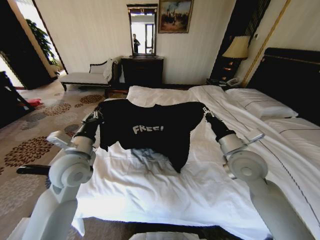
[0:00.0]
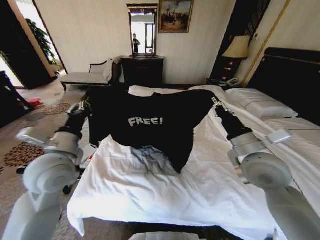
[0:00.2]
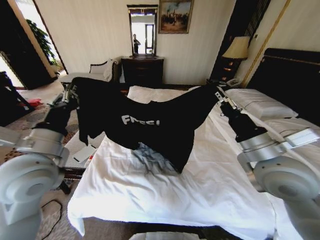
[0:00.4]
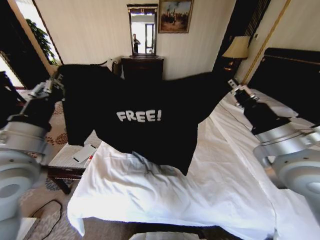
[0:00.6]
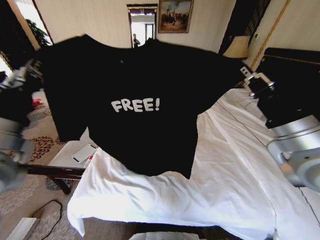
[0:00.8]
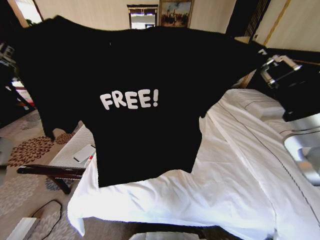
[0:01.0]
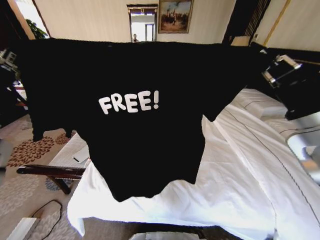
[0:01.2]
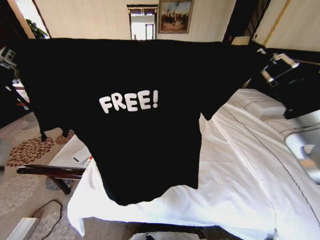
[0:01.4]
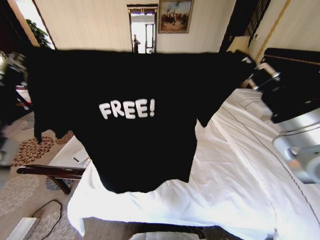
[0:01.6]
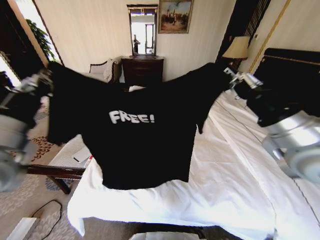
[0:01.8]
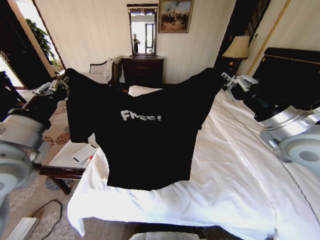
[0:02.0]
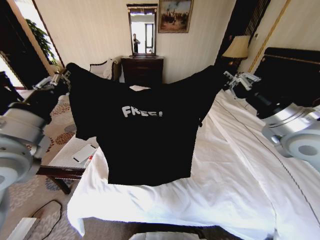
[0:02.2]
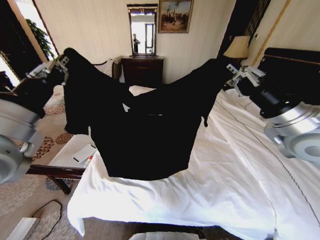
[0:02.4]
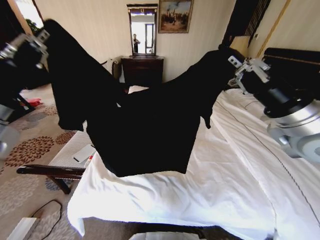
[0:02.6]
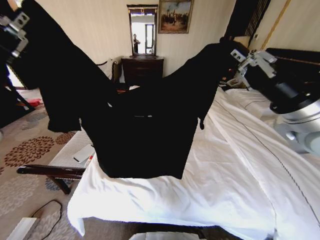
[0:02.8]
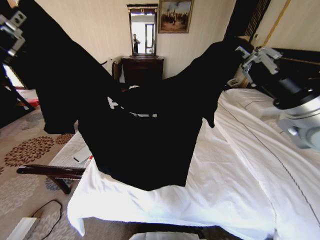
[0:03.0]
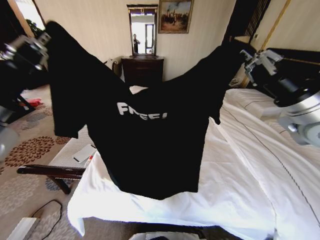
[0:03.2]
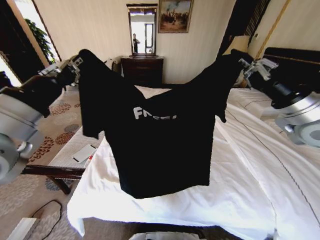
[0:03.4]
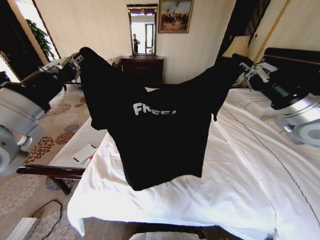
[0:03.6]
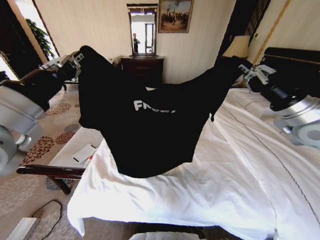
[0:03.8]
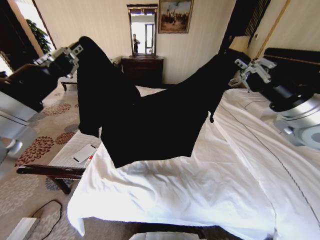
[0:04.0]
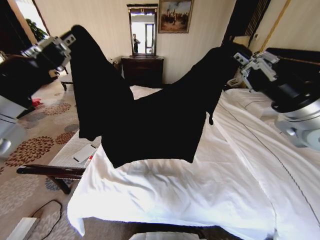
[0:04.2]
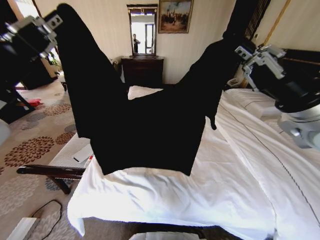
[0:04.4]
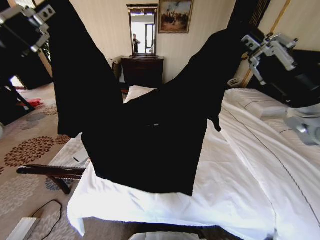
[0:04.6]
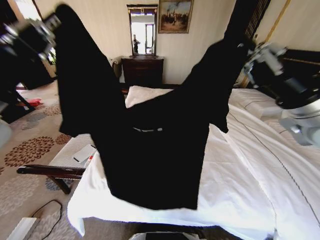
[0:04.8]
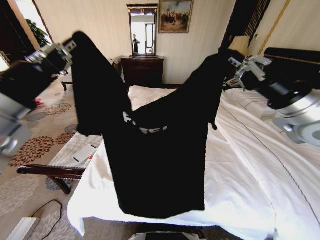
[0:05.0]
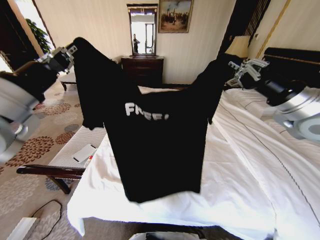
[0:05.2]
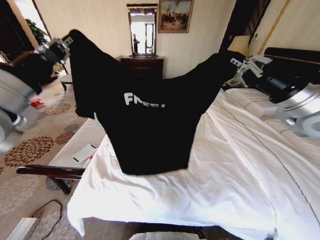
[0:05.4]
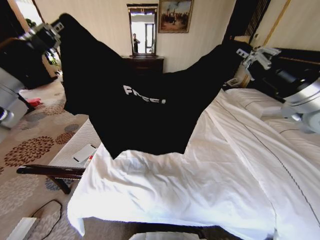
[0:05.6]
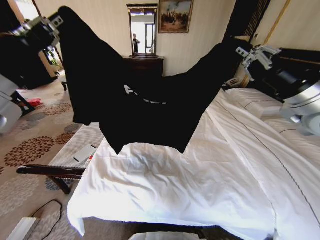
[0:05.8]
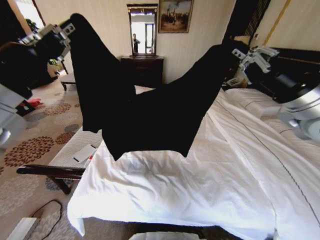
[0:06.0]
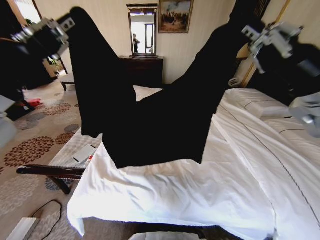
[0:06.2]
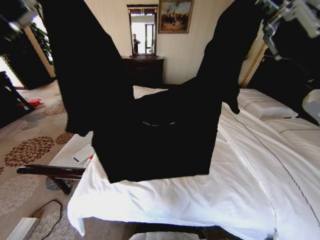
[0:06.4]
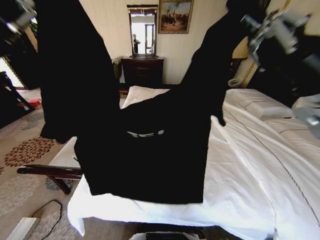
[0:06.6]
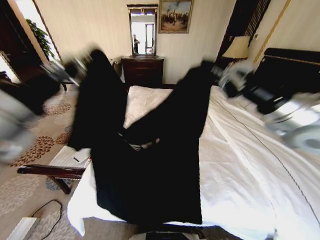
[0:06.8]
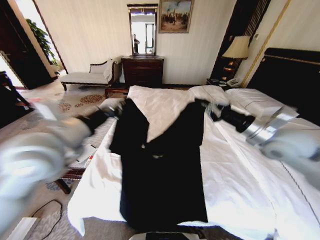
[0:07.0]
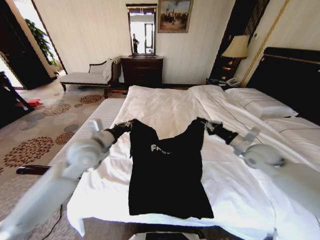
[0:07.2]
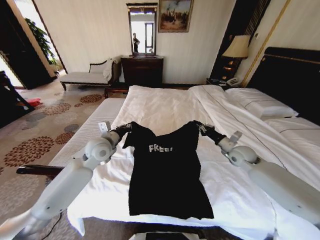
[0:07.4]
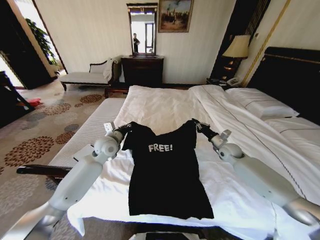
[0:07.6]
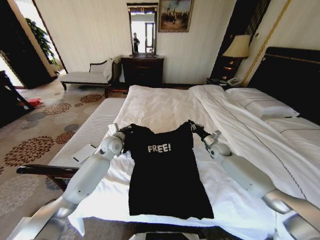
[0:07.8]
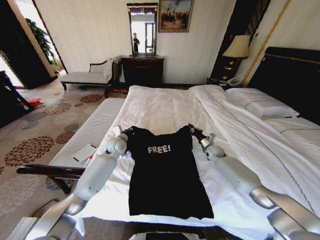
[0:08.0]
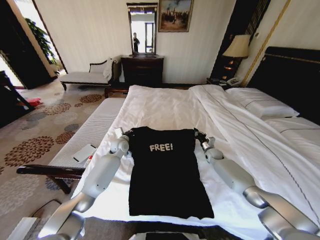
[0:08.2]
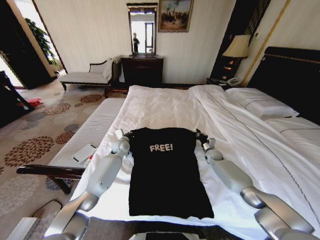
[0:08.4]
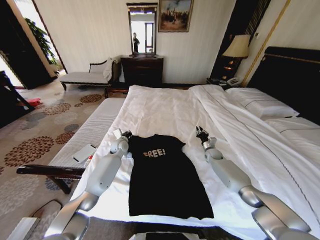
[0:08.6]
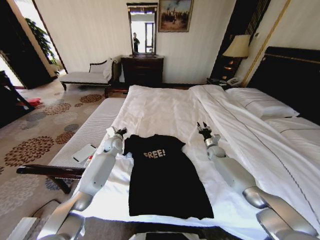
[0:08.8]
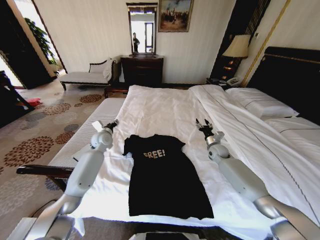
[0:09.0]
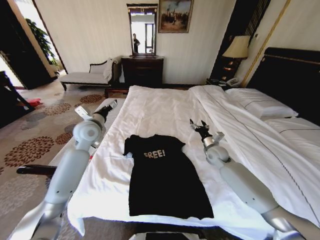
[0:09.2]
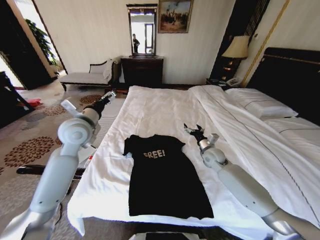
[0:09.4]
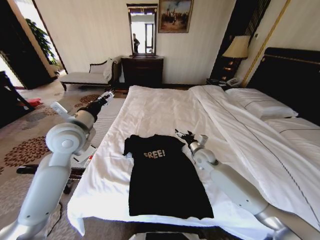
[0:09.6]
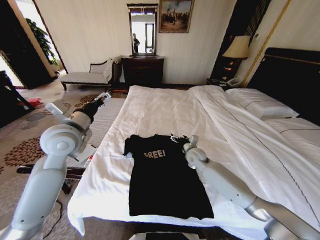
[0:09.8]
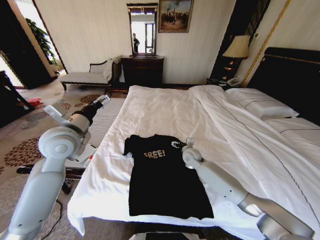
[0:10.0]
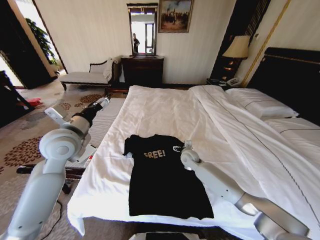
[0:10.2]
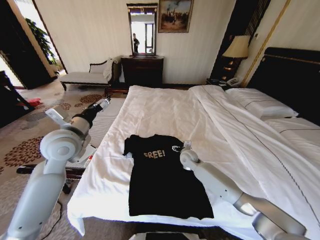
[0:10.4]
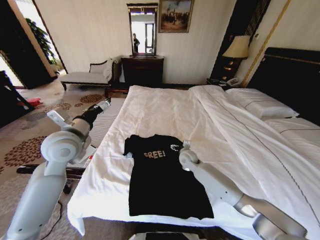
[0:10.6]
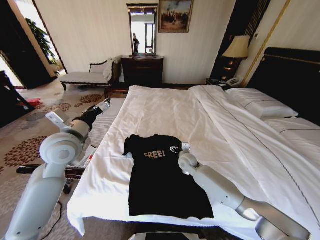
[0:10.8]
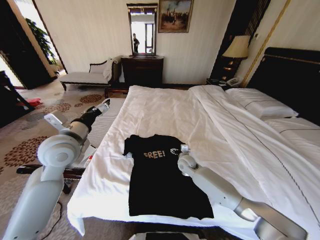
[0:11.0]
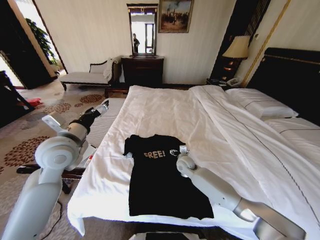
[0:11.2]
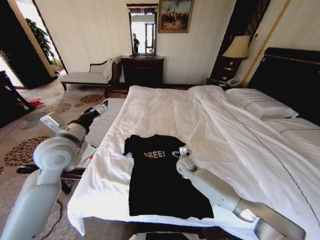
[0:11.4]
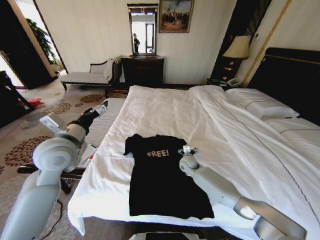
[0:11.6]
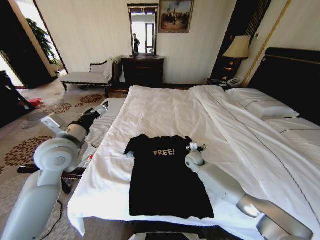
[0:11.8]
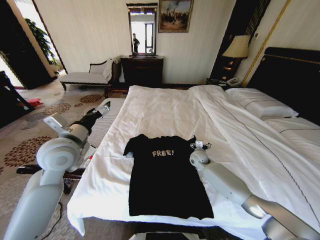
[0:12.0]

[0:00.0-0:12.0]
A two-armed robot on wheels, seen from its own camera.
Task of the whole recording: Fold the clothes on the bed.
0:00.0 to 0:01.6: The left gripper goes about 20 cm upward, backward and to the left. Meanwhile the right gripper travels upward and backward by roughly 15 cm.
0:01.6 to 0:03.0: The right gripper shifts roughly 5 cm forward. Meanwhile the left gripper ends up some 5 cm from where it was.
0:06.0 to 0:07.6: Both grippers travel together downward and forward, approximately 35 cm.
0:07.6 to 0:09.0: The left gripper is displaced forward and to the left by some 10 cm, and opens its fingers. The right gripper opens.
0:09.0 to 0:10.4: The left gripper is displaced backward and upward by roughly 25 cm, and opens up, while the right gripper heads to the left, covering roughly 20 cm, and opens its fingers.
0:10.4 to 0:12.0: The right gripper travels to the right by about 5 cm.

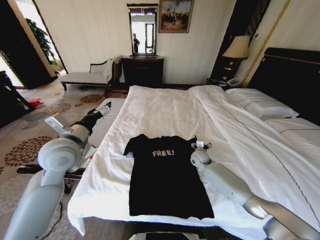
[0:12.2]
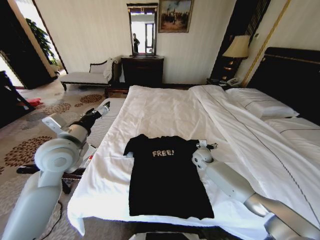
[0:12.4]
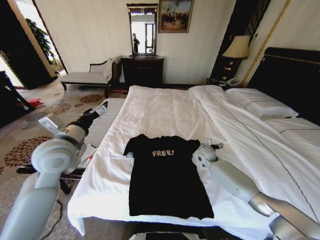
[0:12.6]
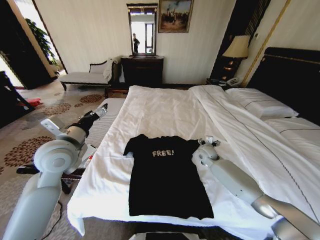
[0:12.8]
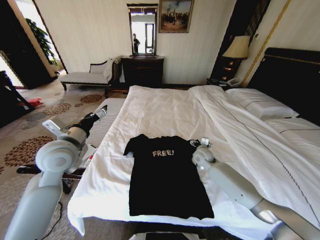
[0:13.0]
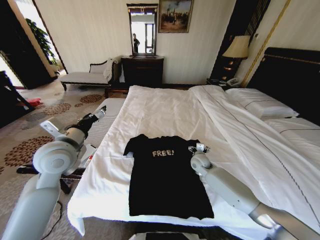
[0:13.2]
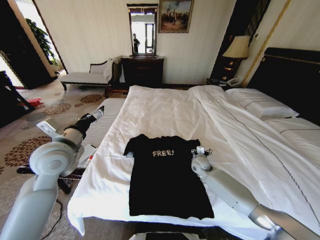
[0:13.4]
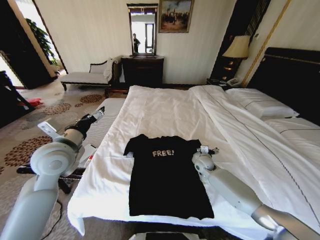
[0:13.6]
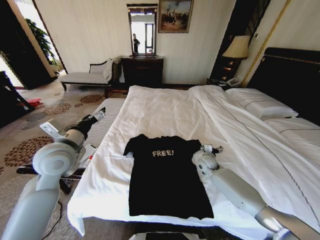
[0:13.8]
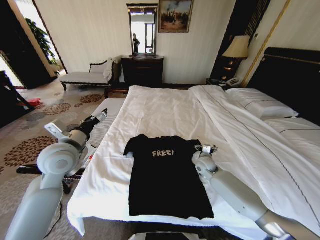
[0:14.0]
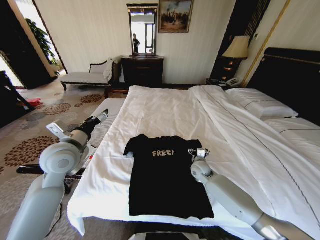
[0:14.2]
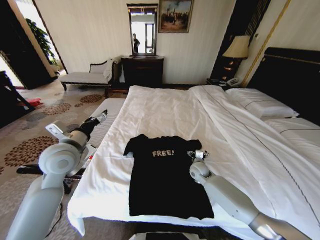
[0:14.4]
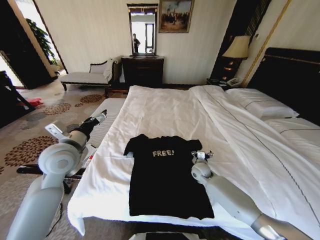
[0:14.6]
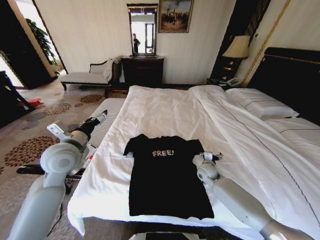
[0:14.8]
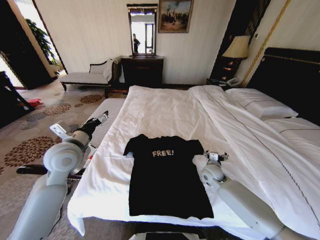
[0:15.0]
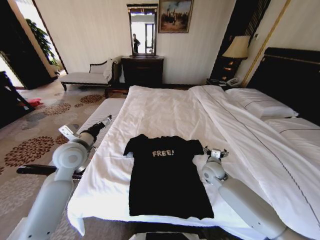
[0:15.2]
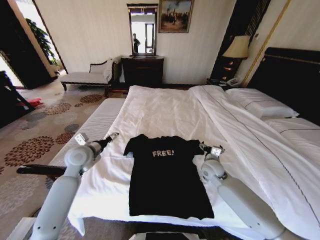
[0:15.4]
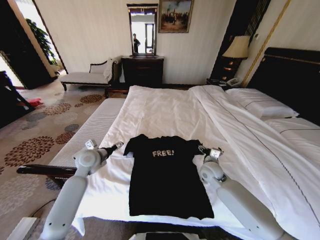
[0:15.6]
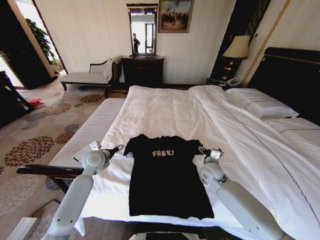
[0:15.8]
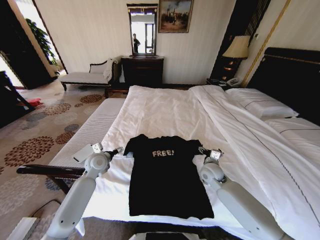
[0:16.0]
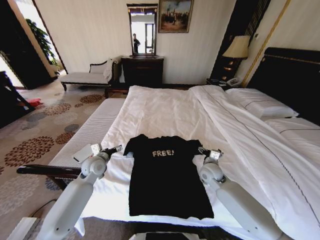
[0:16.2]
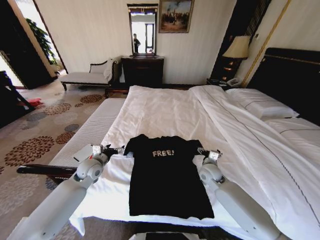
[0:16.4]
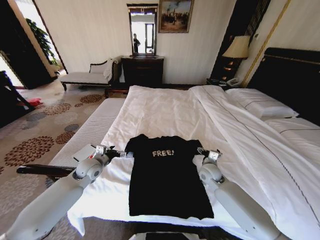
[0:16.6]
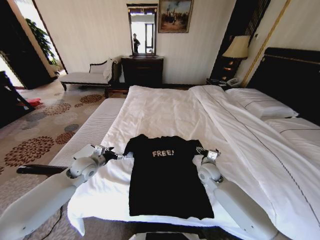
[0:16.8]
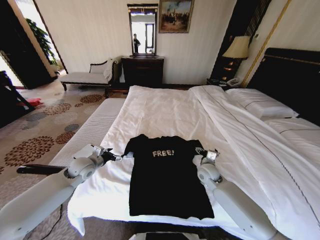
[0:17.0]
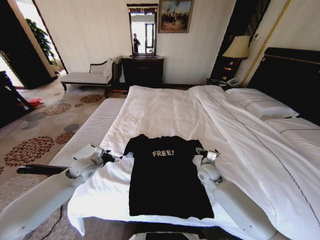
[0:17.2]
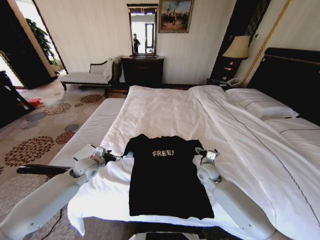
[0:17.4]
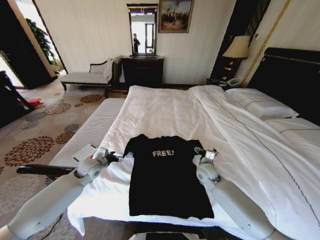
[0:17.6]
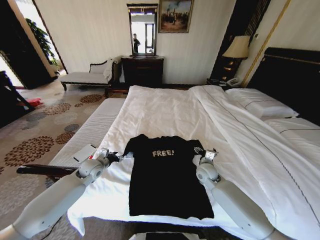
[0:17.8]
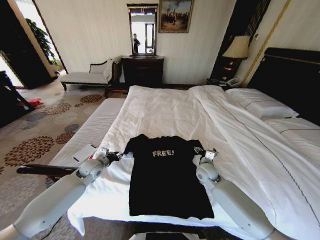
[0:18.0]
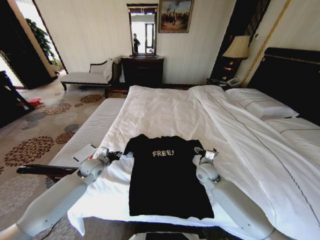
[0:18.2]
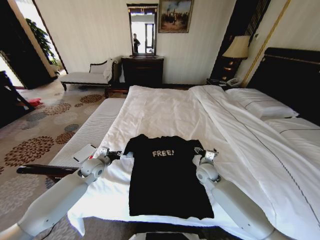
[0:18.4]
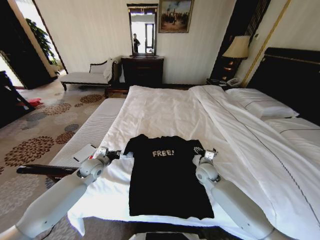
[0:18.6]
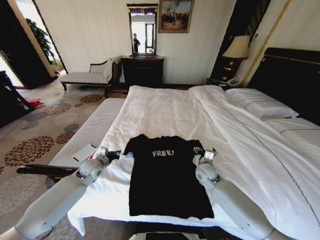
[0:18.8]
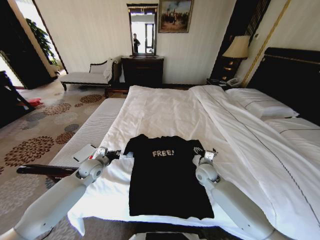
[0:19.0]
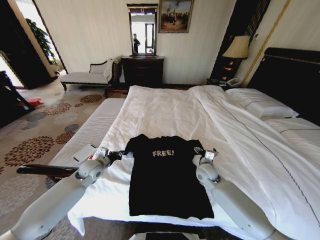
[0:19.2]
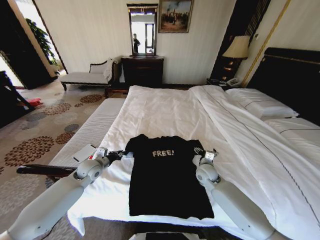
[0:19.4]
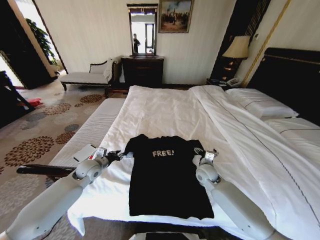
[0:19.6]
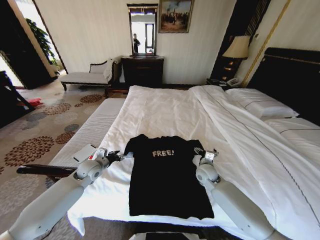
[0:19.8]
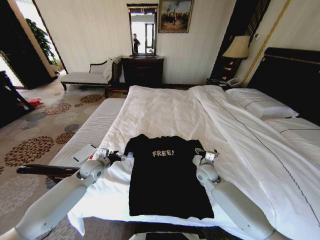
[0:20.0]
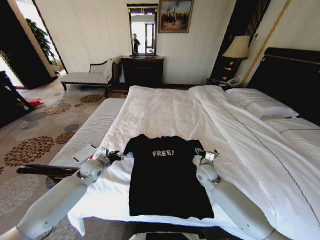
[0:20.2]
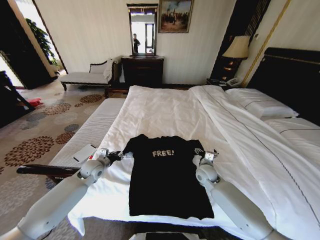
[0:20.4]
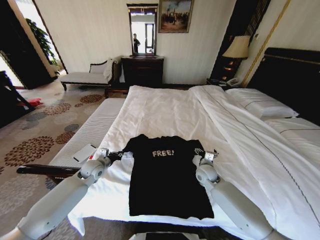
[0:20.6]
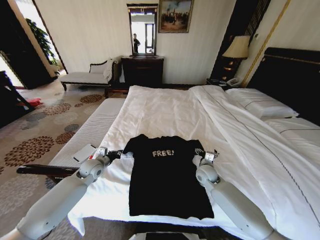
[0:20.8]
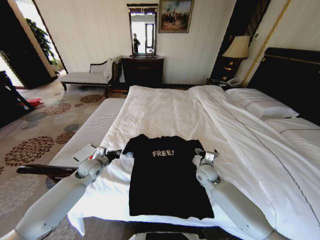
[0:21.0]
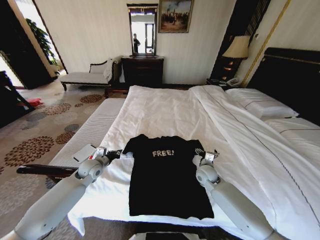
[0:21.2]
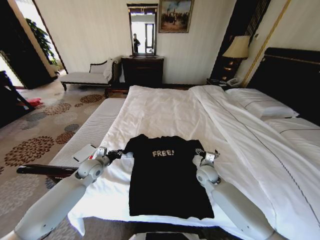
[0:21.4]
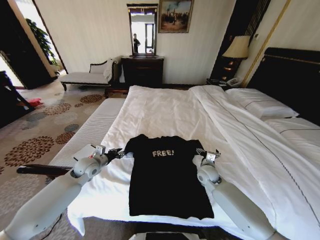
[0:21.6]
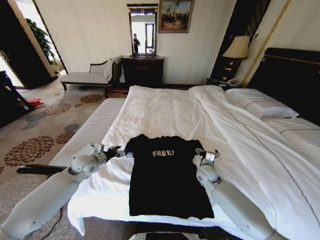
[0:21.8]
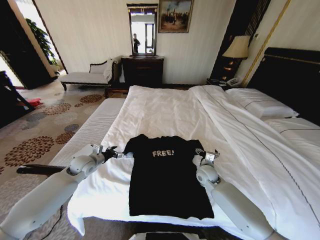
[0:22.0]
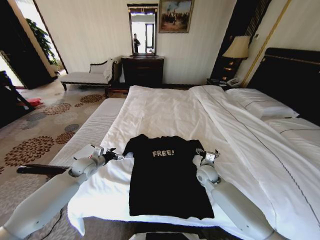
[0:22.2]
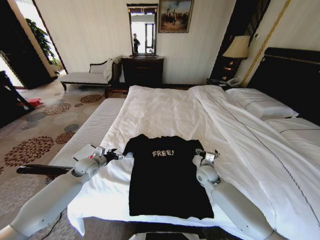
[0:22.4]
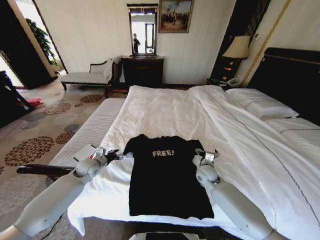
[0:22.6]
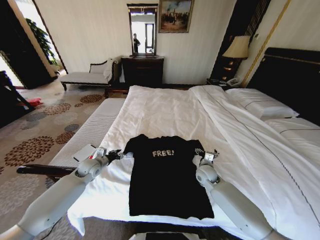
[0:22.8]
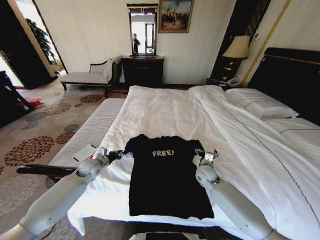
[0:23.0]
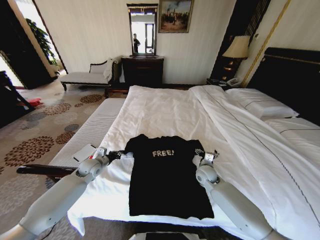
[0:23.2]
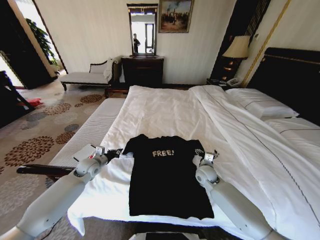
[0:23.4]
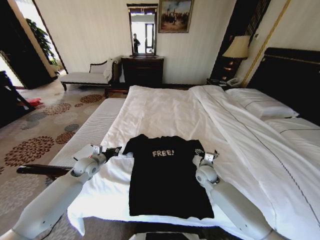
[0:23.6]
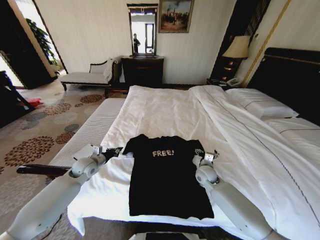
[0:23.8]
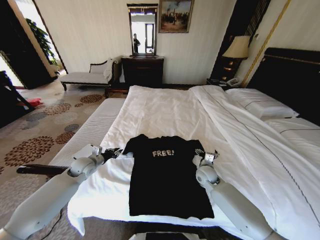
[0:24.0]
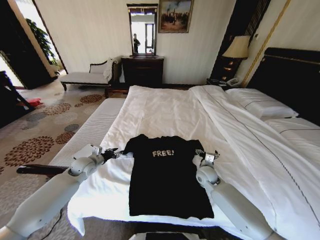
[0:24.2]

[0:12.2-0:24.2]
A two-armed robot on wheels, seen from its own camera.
Task of the whole recording: Fold the clothes on the bed.
0:12.2 to 0:13.8: The right gripper swings left and right, approximately 5 cm each way, with 2 reversals.
0:13.8 to 0:15.2: The left gripper changes place by about 5 cm. Meanwhile the right gripper moves backward, about 5 cm.
0:15.2 to 0:16.6: The left gripper goes roughly 15 cm downward.
0:16.6 to 0:18.2: The left gripper closes up.
0:18.2 to 0:19.8: There are only small adjustments of the grippers.
0:19.8 to 0:21.2: The left gripper closes its fingers.
0:21.2 to 0:22.6: The left gripper opens its fingers.
0:22.6 to 0:24.2: The left gripper closes and opens again.
